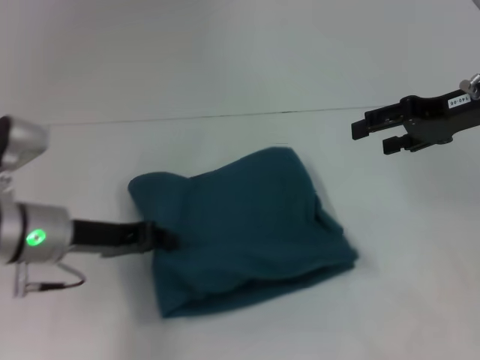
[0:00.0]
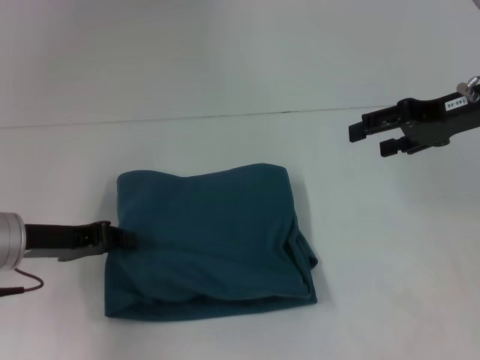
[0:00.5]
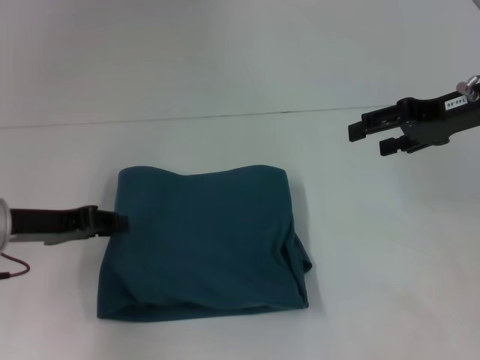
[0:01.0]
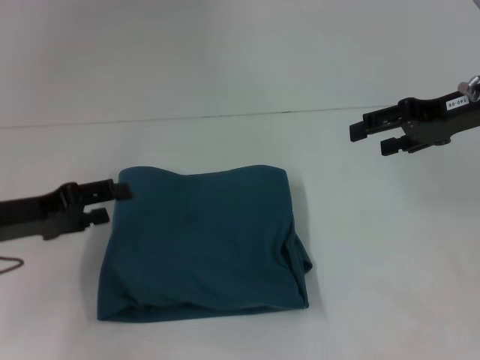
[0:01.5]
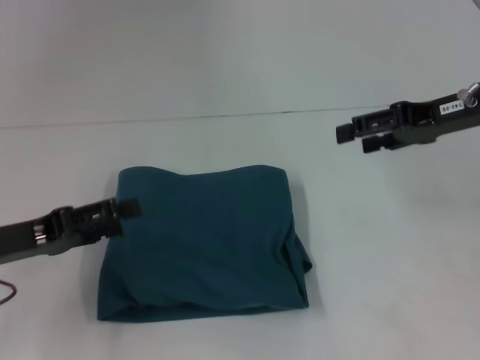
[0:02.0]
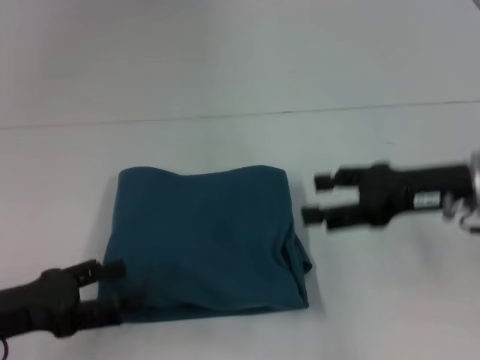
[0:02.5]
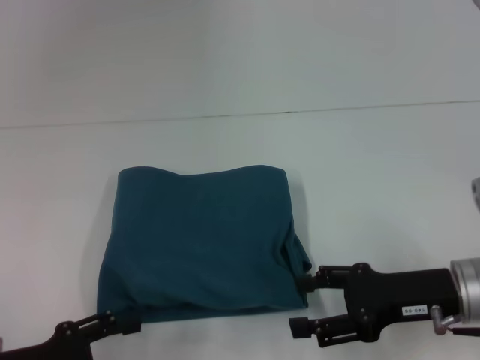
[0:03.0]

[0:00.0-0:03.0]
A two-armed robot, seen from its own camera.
0:00.0 to 0:01.5: The left gripper shifts approximately 5 cm to the left, and opens its fingers.
0:01.5 to 0:03.0: The right gripper travels downward and backward by about 20 cm. Meanwhile the left gripper heads backward and downward, covering some 15 cm, and opens.

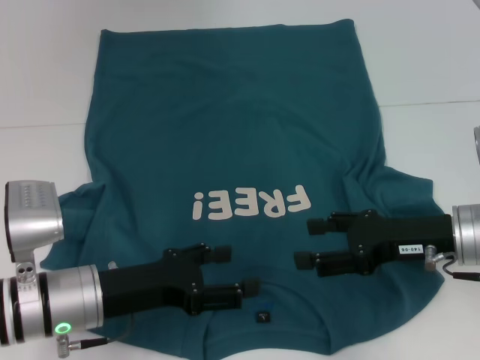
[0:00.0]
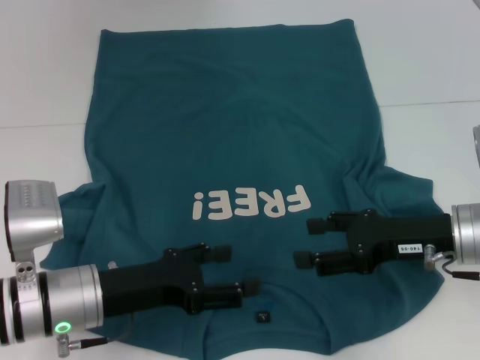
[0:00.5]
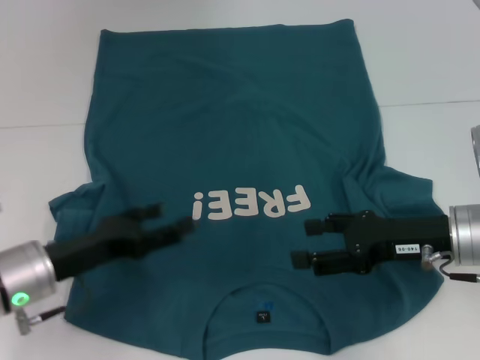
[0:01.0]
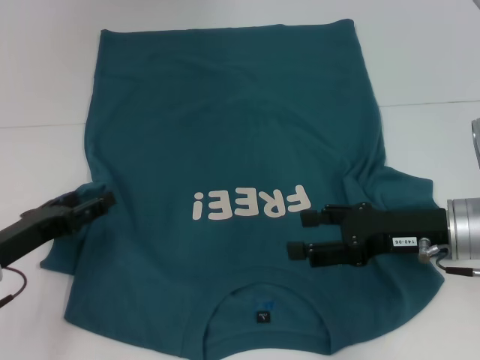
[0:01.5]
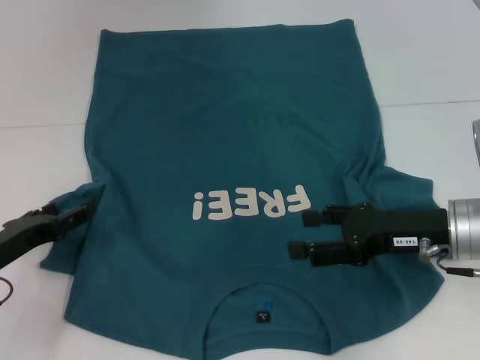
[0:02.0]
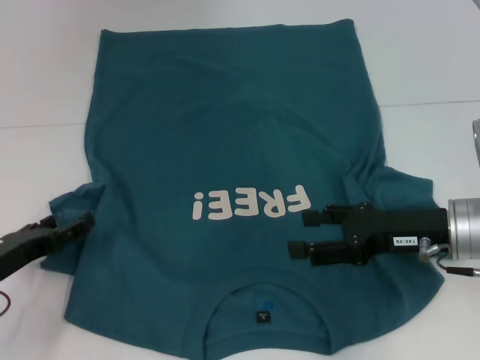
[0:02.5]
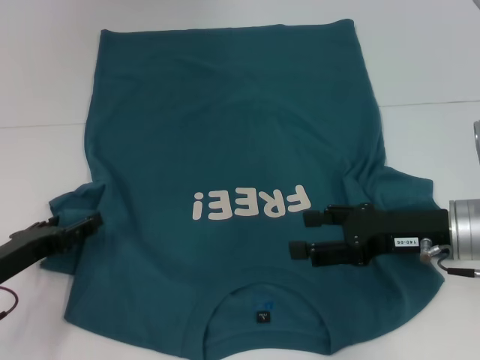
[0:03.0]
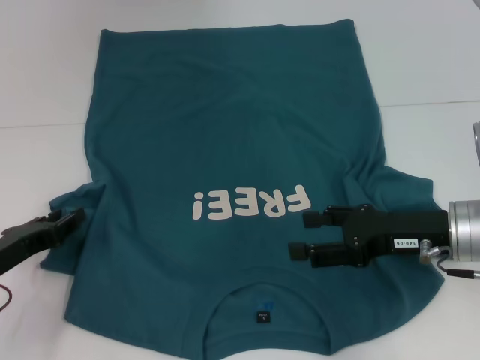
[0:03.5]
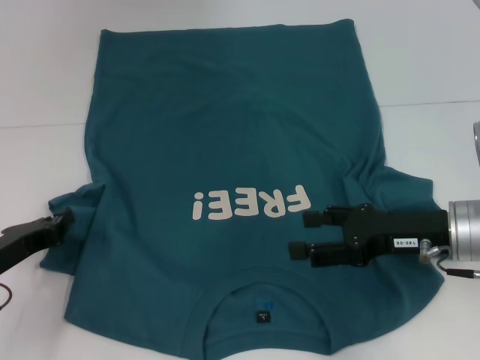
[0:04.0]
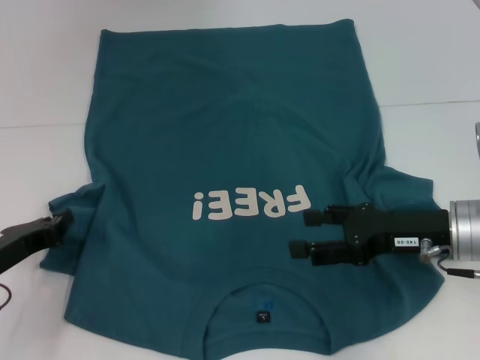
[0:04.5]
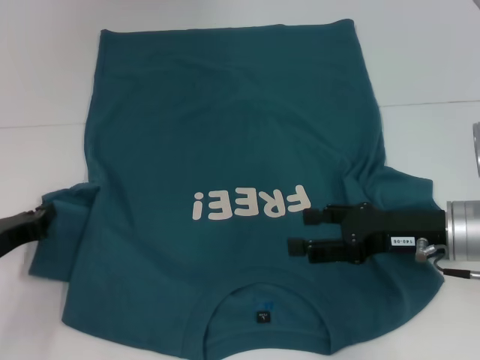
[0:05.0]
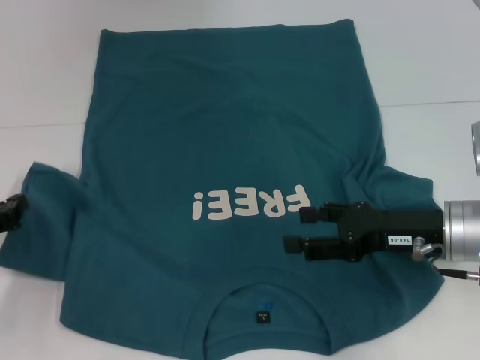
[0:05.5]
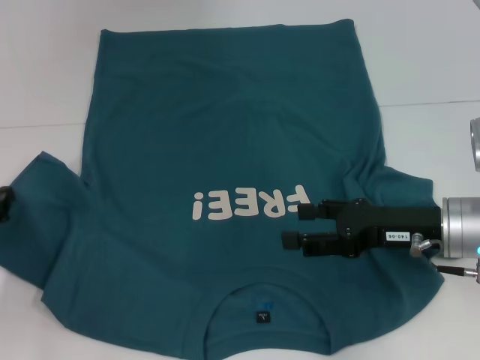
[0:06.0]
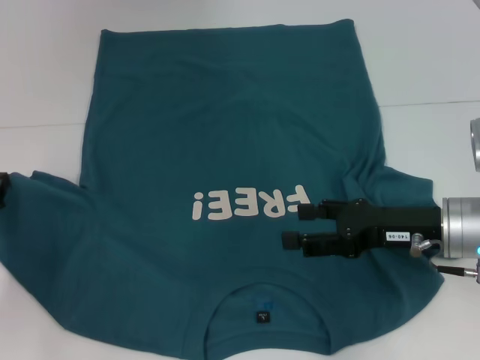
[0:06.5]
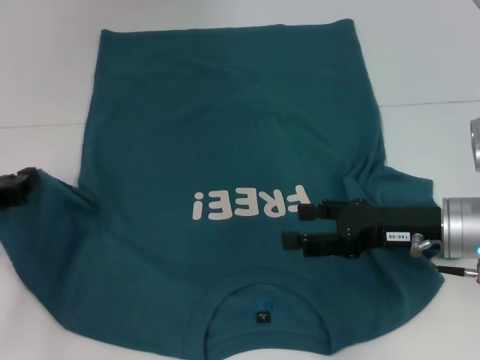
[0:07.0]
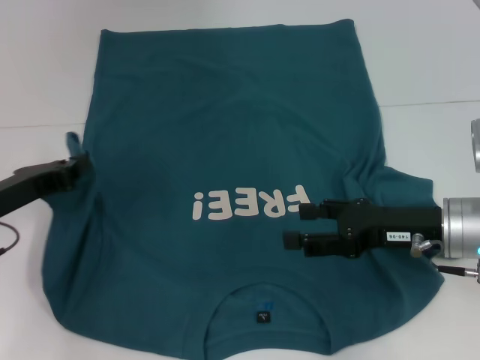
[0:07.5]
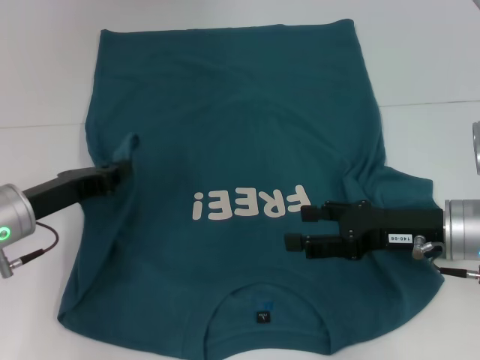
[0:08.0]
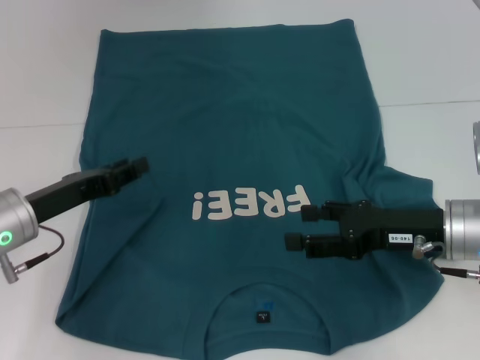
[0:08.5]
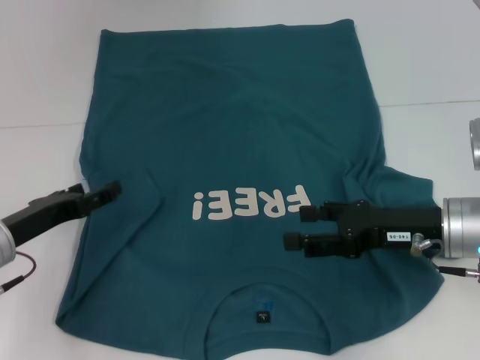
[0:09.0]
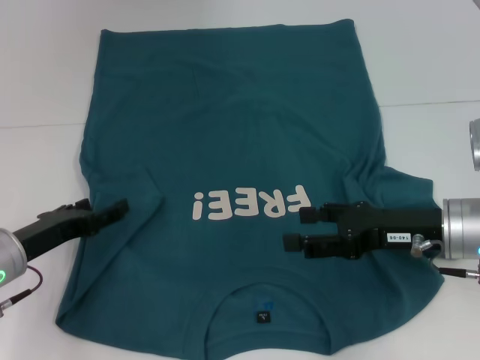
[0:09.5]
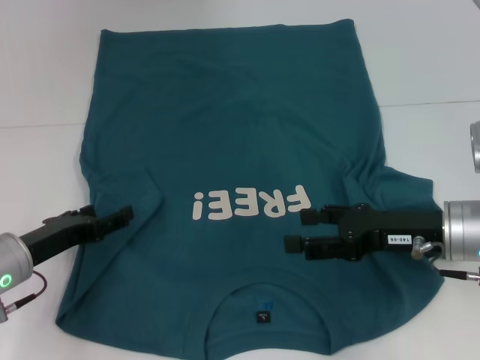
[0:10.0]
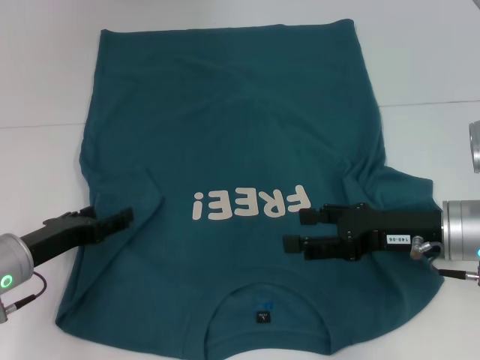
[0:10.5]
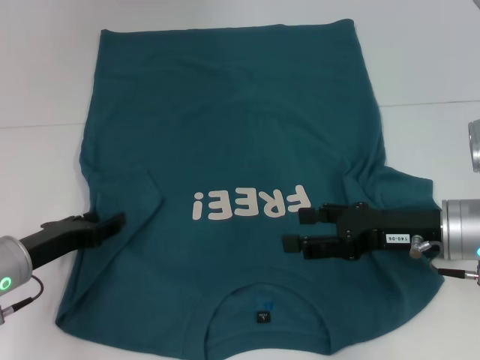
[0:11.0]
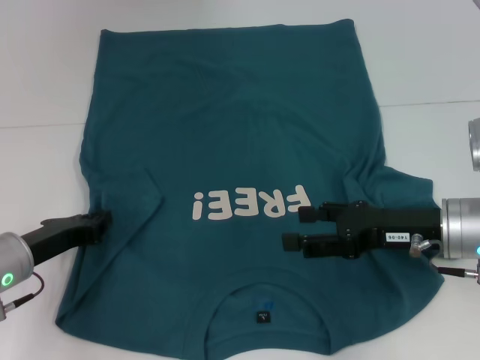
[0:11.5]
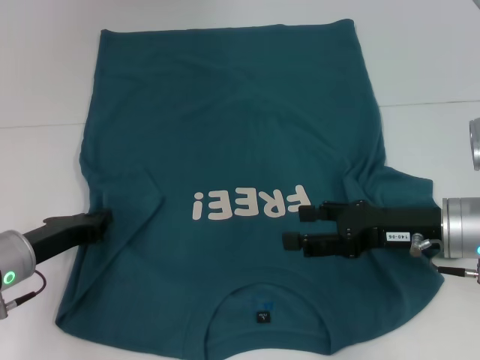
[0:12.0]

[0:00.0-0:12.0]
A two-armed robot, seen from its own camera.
0:00.0 to 0:02.0: The left gripper goes roughly 10 cm to the left.
0:02.0 to 0:04.0: The left gripper closes up.
0:04.0 to 0:06.0: The left gripper changes place by about 5 cm.
0:06.0 to 0:08.0: The left gripper heads to the right, covering some 10 cm.
0:08.0 to 0:10.0: The left gripper shifts by approximately 5 cm, and opens.
0:10.0 to 0:12.0: The left gripper closes.

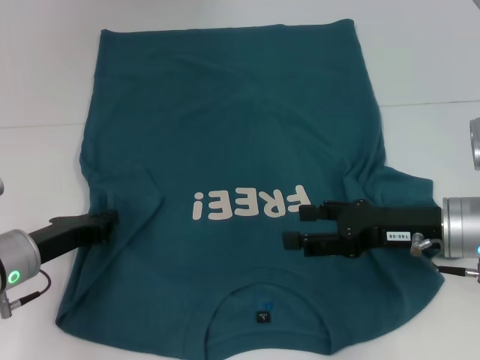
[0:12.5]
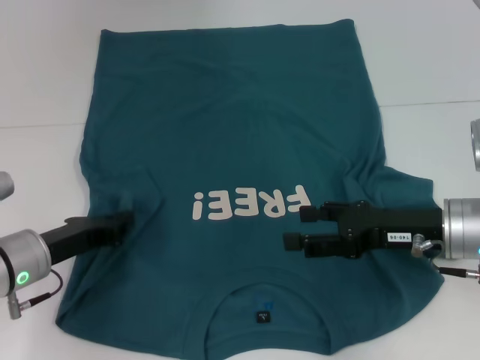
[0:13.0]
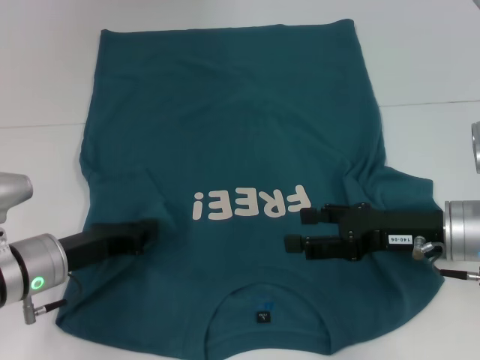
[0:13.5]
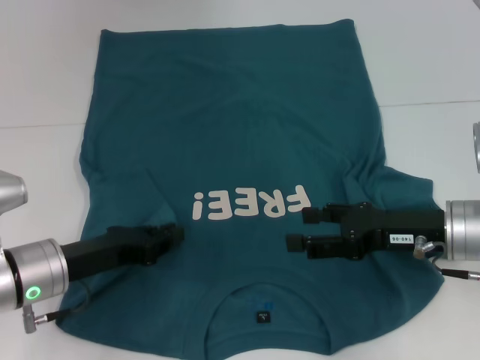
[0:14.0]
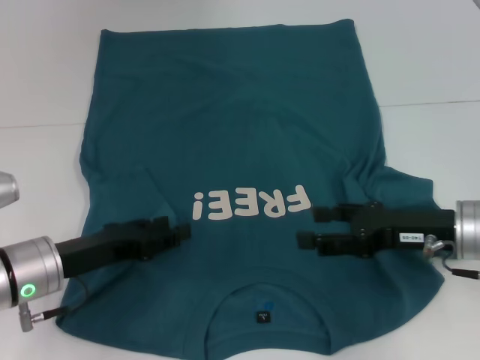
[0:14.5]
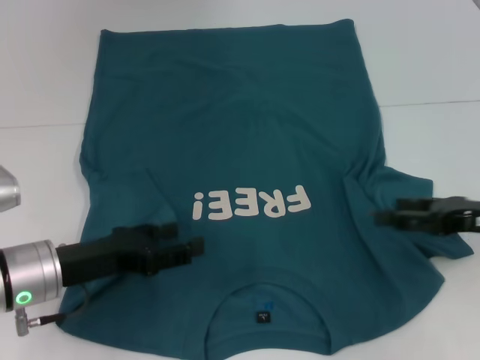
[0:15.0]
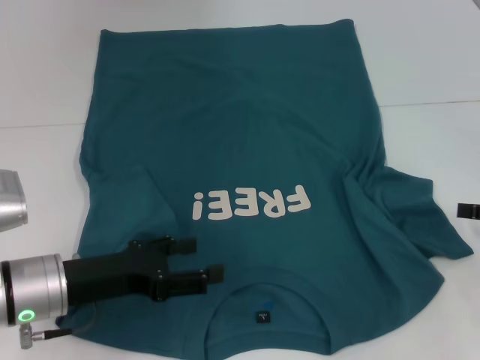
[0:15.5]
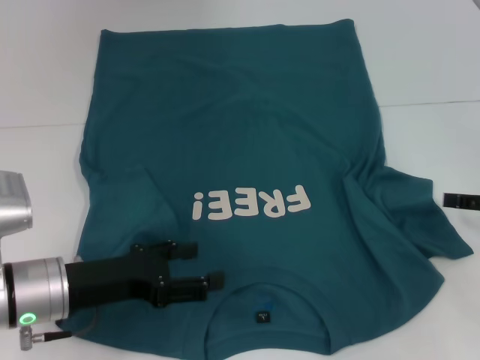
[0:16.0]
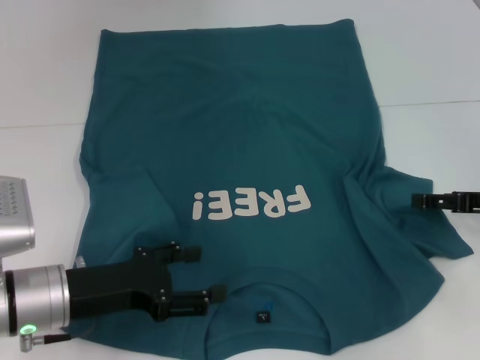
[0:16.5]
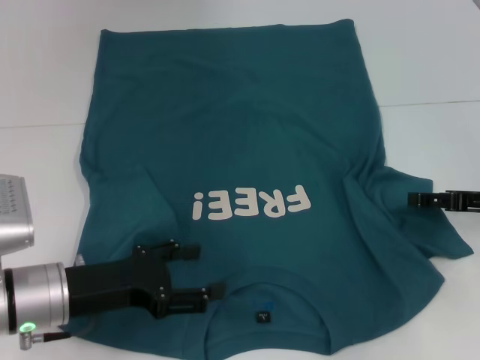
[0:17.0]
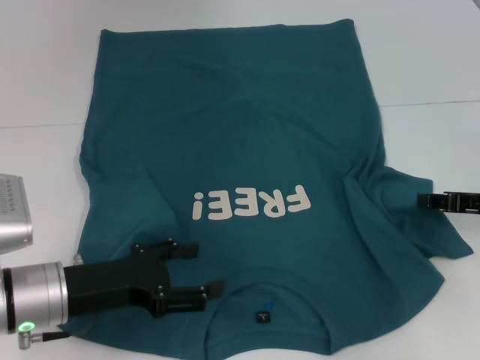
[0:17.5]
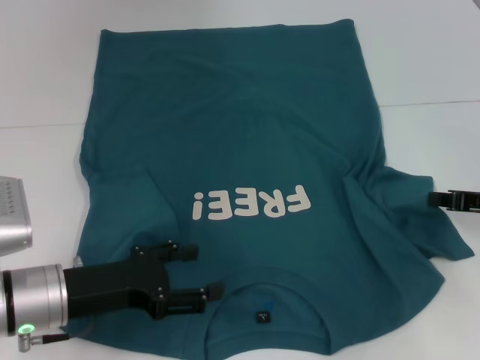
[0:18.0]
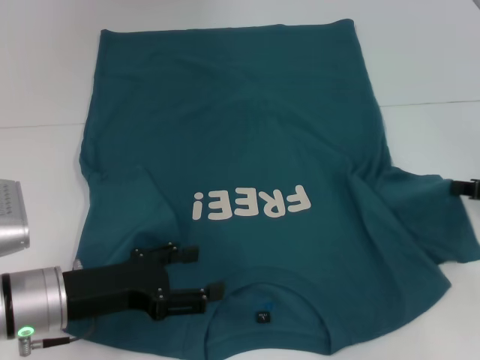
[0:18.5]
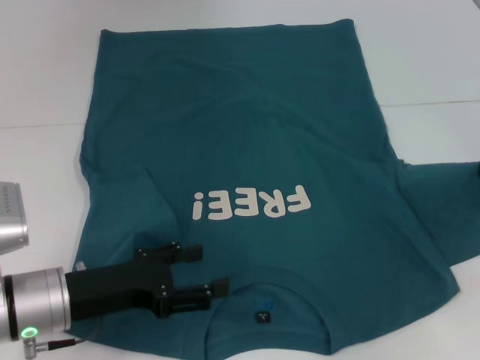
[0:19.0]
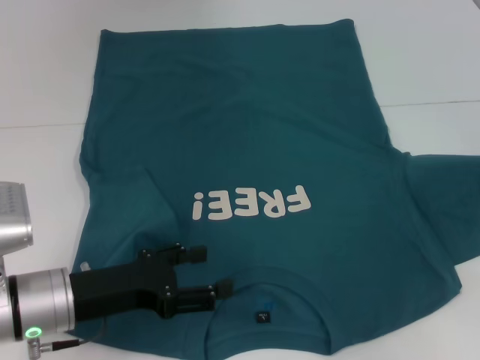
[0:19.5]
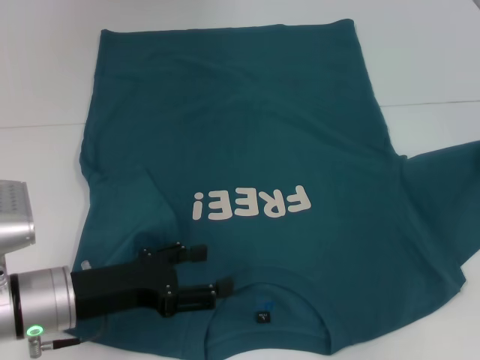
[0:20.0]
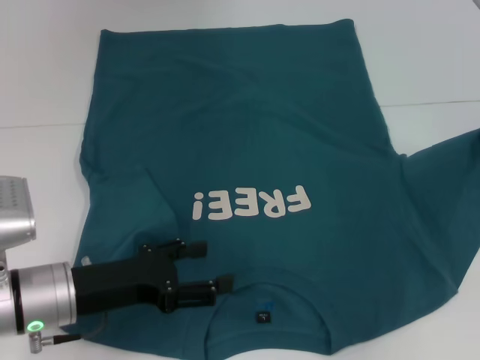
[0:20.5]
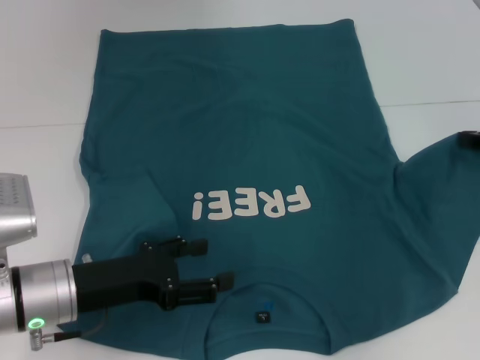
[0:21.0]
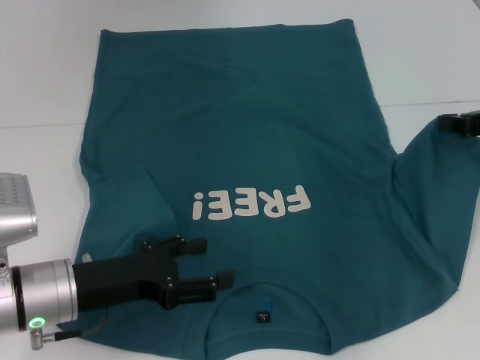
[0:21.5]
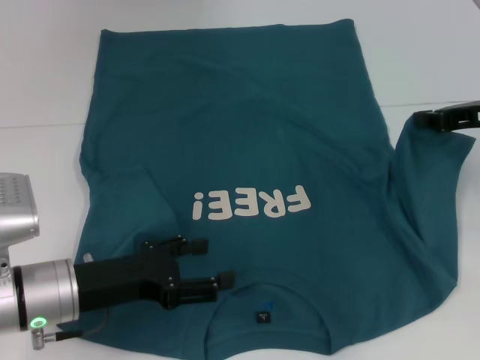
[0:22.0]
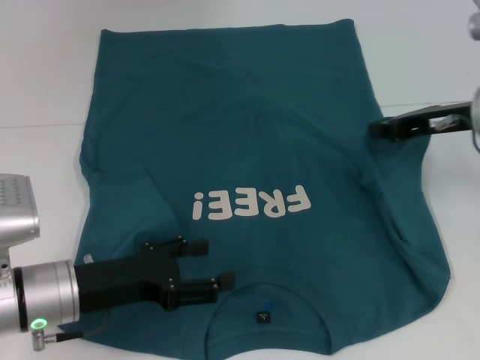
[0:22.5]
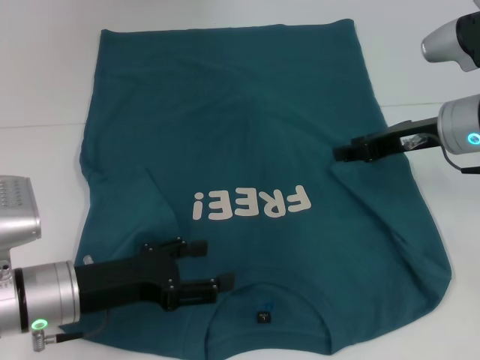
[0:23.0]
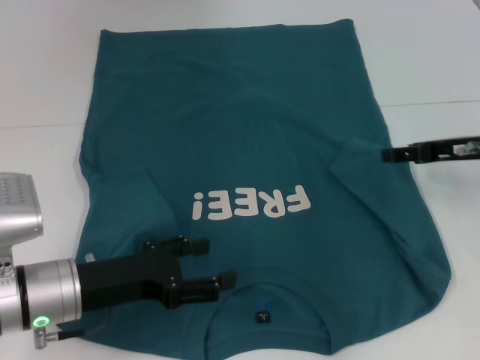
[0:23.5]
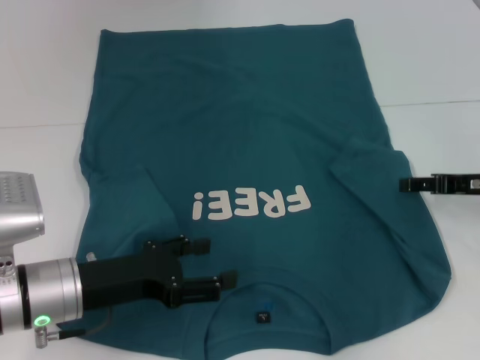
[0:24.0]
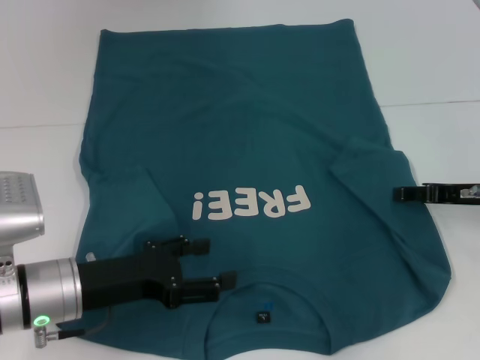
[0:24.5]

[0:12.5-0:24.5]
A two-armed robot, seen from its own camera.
0:12.5 to 0:14.5: The left gripper opens its fingers.
0:14.5 to 0:16.5: The right gripper heads to the right, covering about 10 cm. The left gripper opens.
0:16.5 to 0:18.5: The right gripper closes up.
0:18.5 to 0:20.5: The right gripper moves about 5 cm.
0:20.5 to 0:22.5: The right gripper goes some 10 cm to the left.
0:22.5 to 0:24.5: The right gripper heads downward, covering some 10 cm, and opens.
